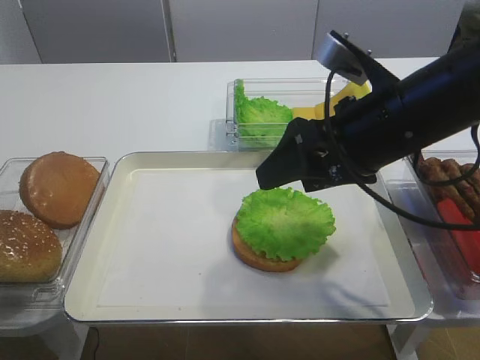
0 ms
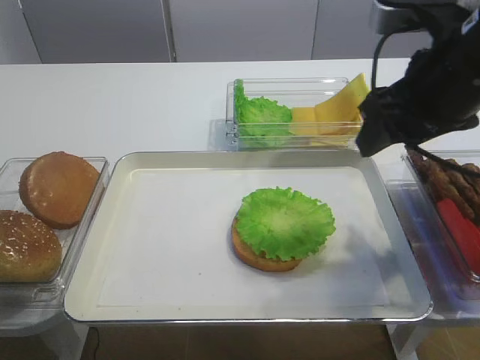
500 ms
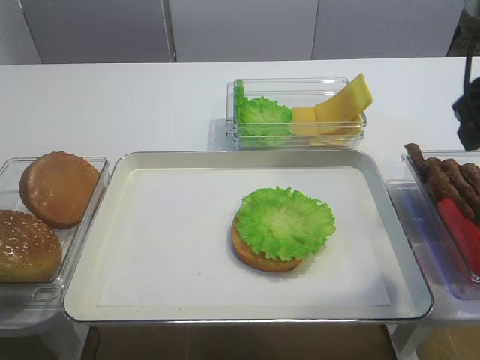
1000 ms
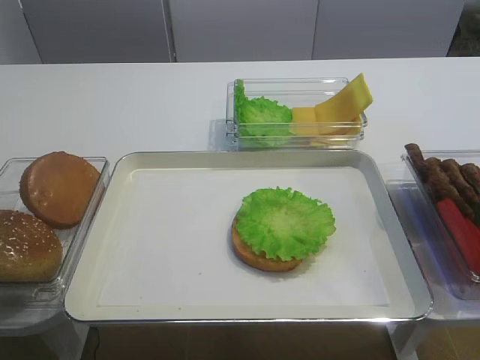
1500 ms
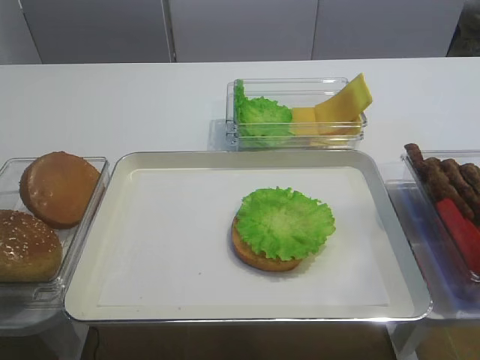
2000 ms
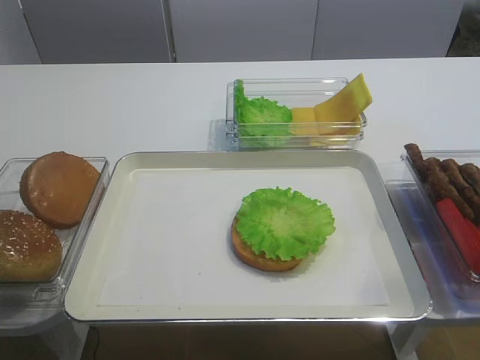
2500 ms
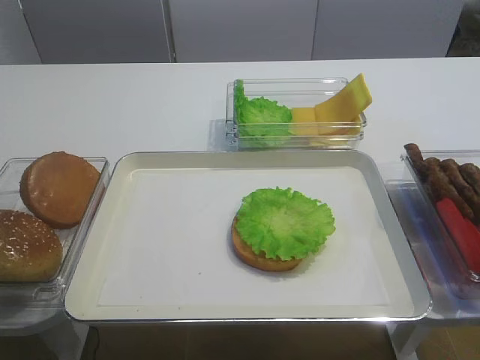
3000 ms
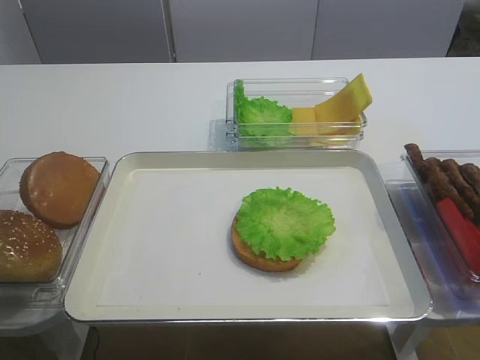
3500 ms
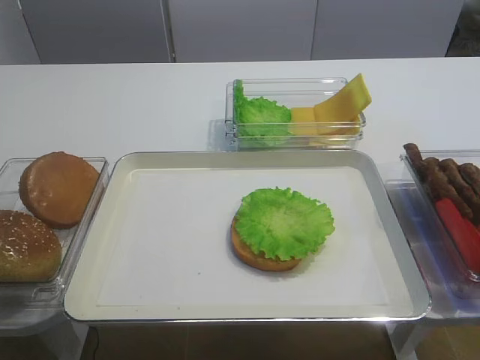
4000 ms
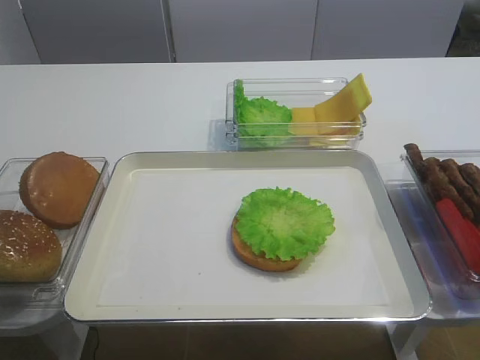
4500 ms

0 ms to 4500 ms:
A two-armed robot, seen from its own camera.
0 ms to 2000 ms: The right gripper goes about 20 cm backward and to the right.

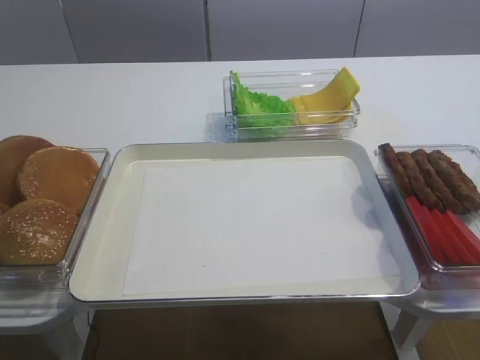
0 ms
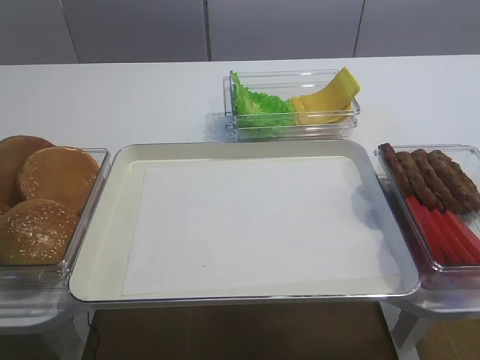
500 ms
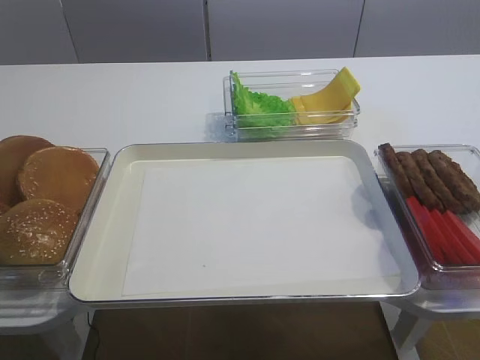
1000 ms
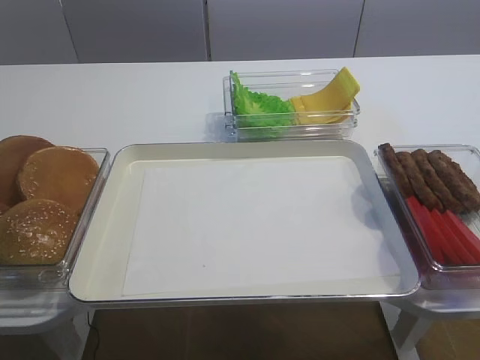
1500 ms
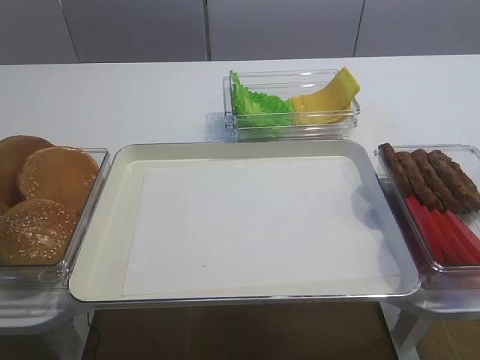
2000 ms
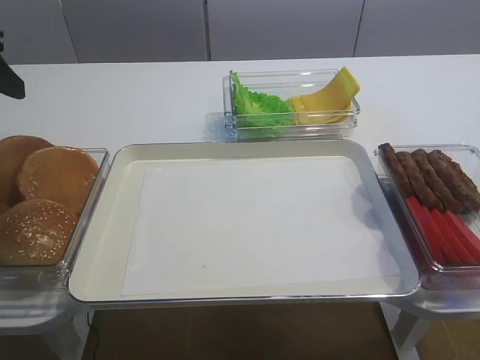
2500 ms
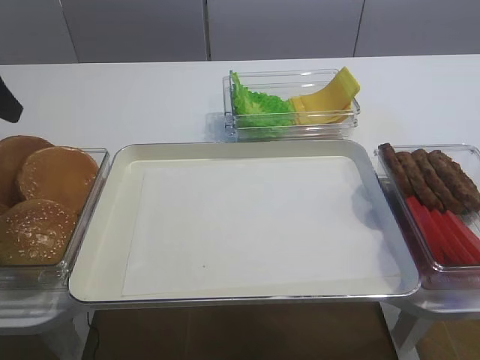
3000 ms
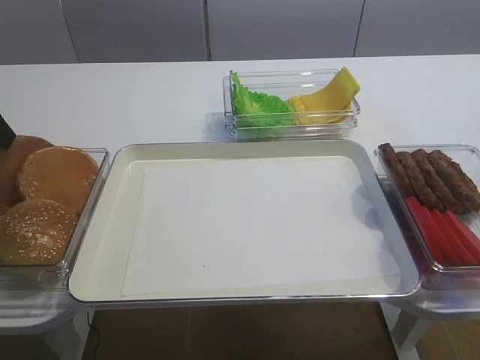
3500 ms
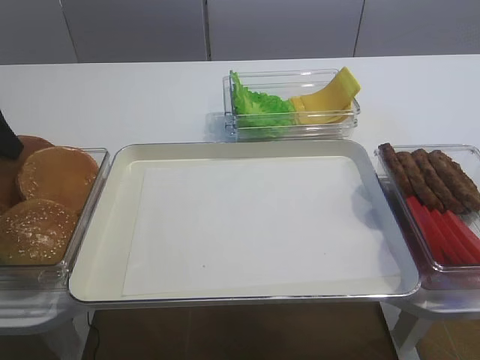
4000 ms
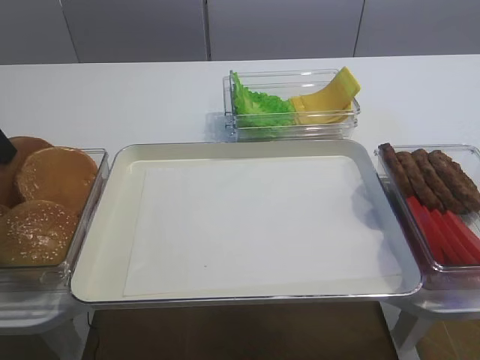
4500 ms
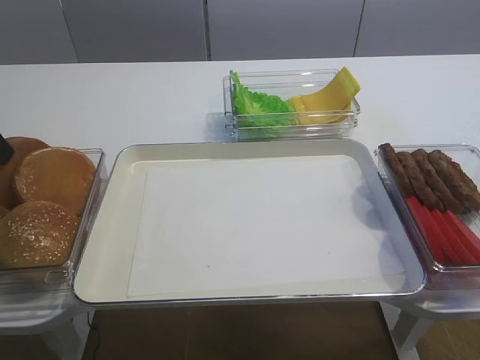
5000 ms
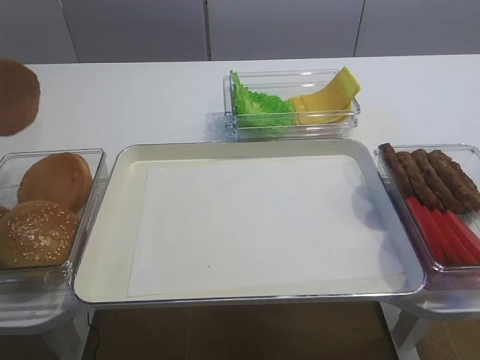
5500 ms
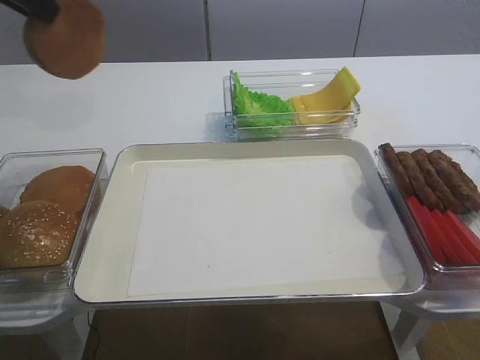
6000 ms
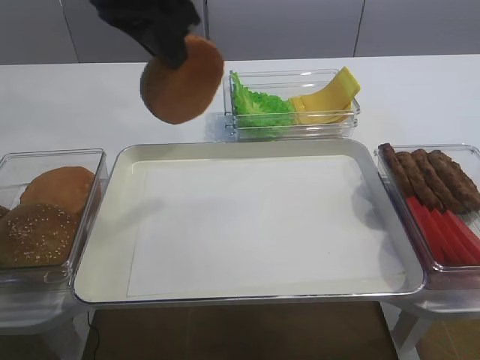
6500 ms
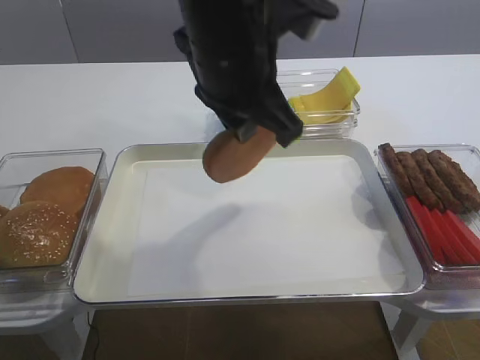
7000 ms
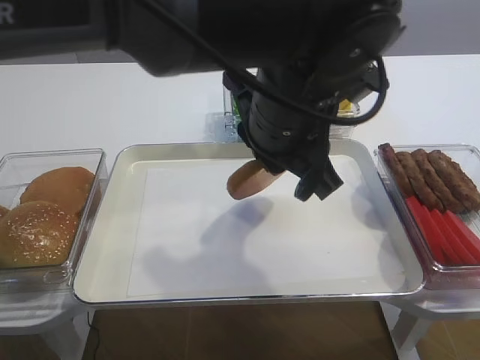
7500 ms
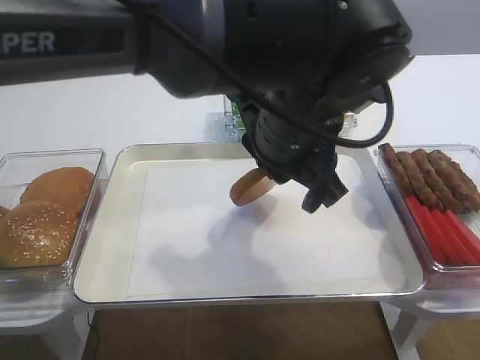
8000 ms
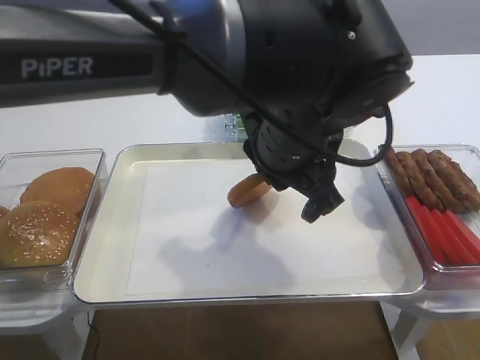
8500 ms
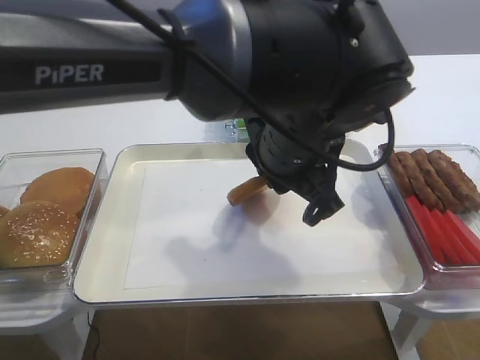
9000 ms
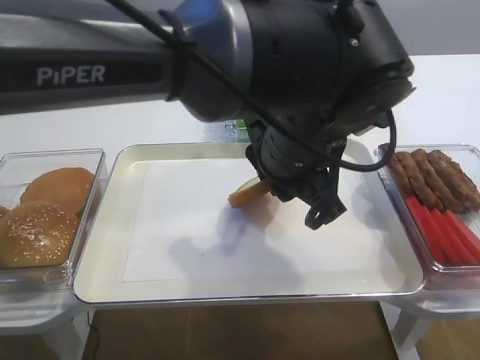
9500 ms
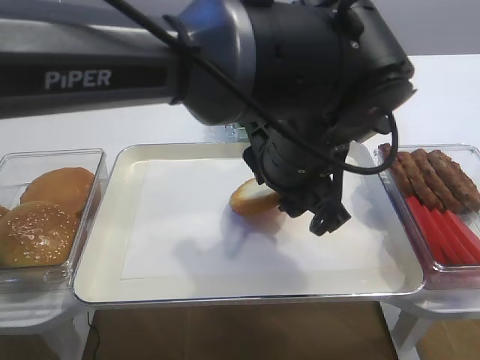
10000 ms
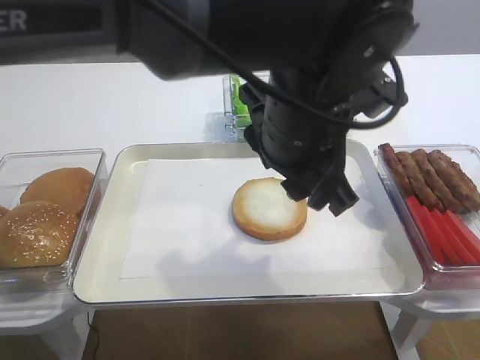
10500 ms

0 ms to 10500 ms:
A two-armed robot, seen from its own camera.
Step, 0 ms to 5000 ms: Pick up the bread slice with the left gripper.
4000 ms to 6500 ms: The left gripper heads to the right and upward, covering about 25 cm, and closes.
6500 ms to 8500 ms: The left gripper shifts some 20 cm to the right and downward.
8500 ms to 10500 ms: The left gripper opens.

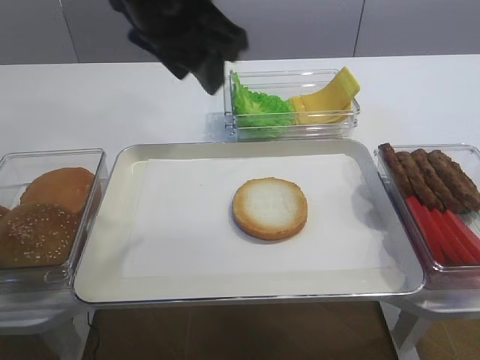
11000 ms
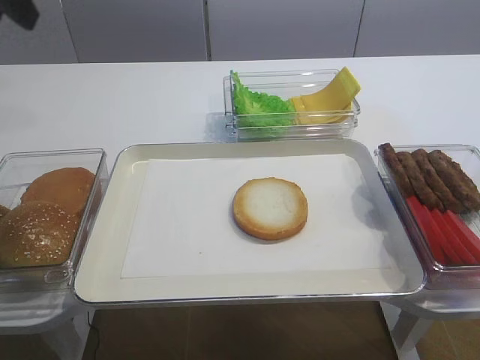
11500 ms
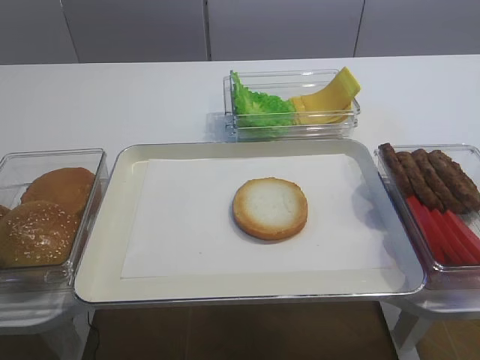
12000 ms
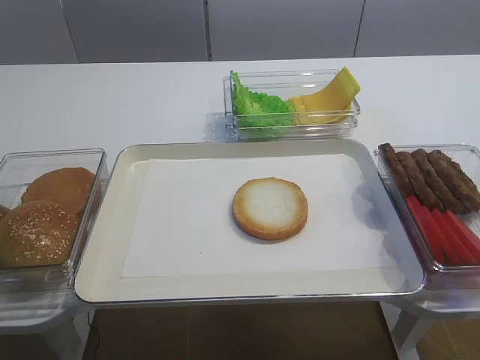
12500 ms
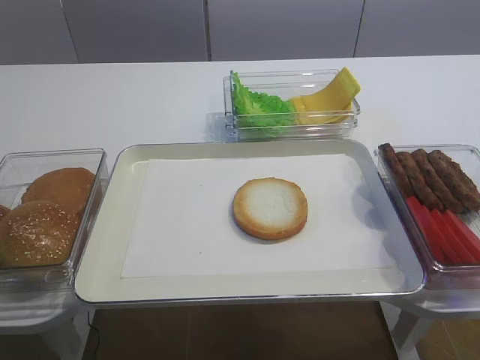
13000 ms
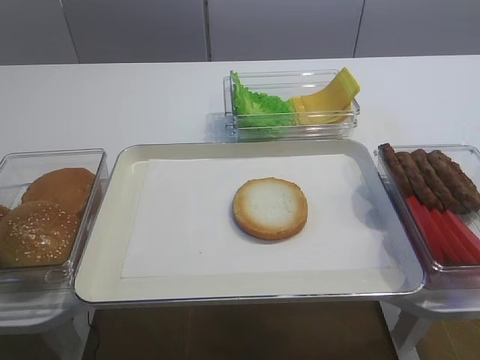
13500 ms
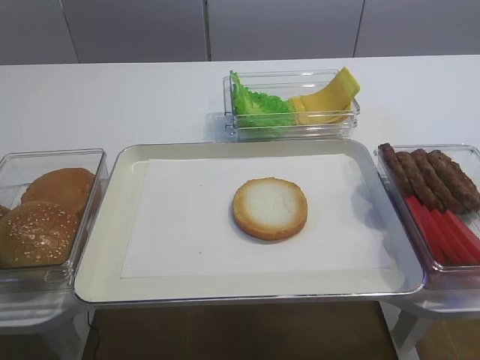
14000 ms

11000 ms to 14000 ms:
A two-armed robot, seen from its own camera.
11000 ms to 12500 ms: The left gripper shifts some 30 cm backward and to the left.

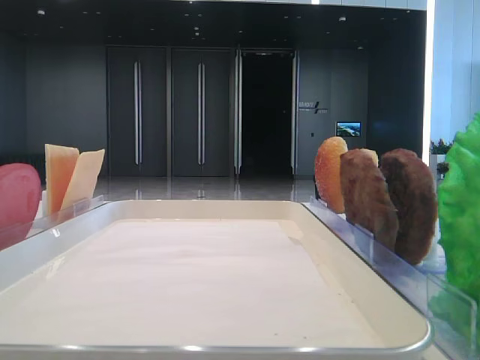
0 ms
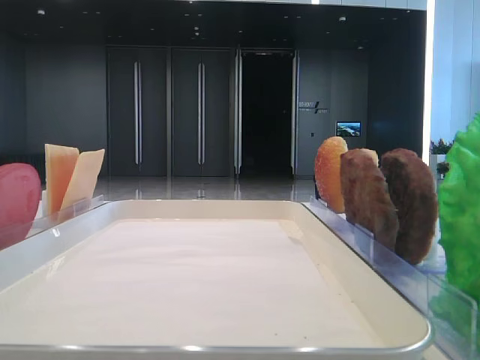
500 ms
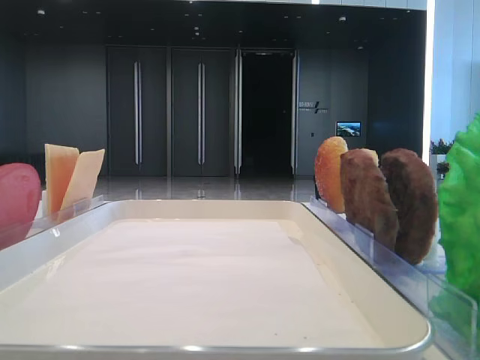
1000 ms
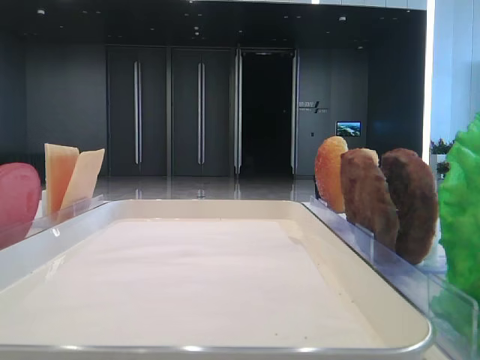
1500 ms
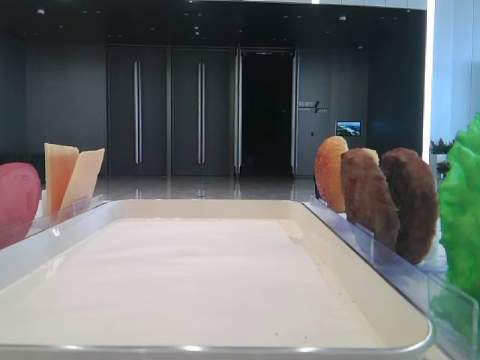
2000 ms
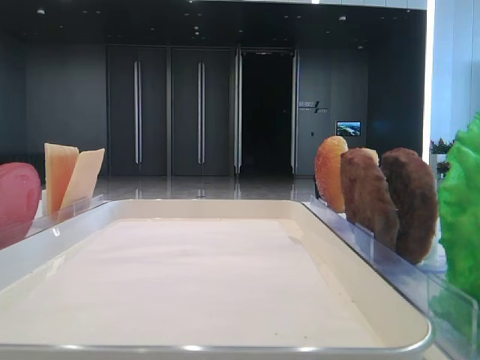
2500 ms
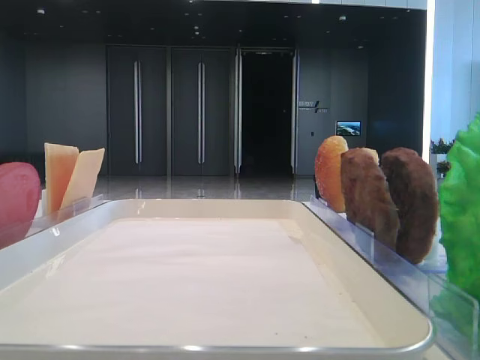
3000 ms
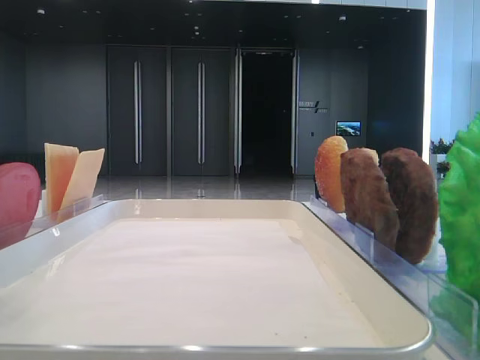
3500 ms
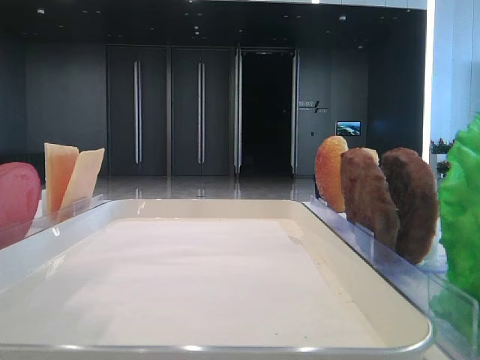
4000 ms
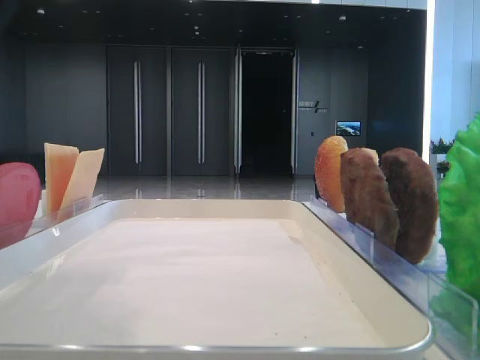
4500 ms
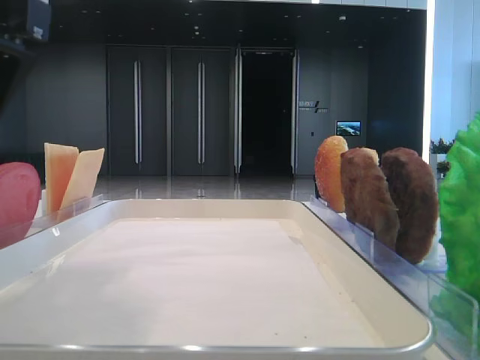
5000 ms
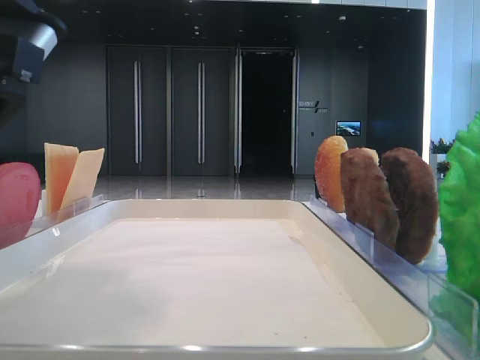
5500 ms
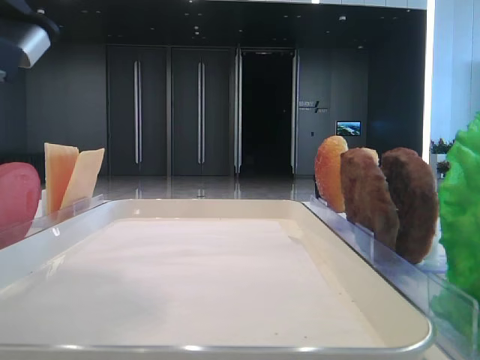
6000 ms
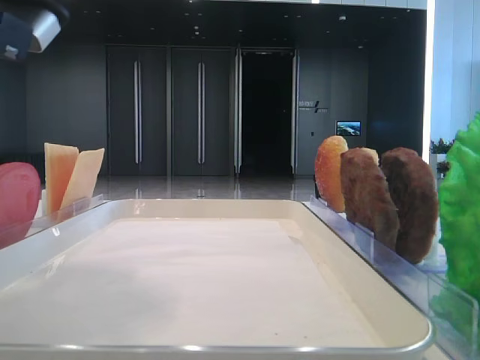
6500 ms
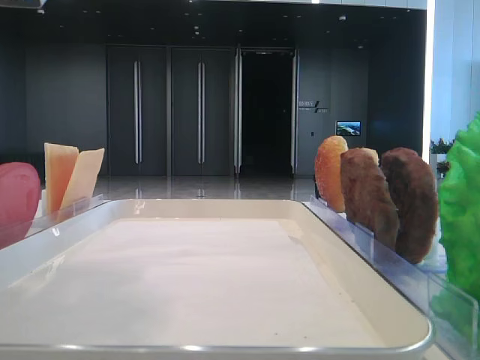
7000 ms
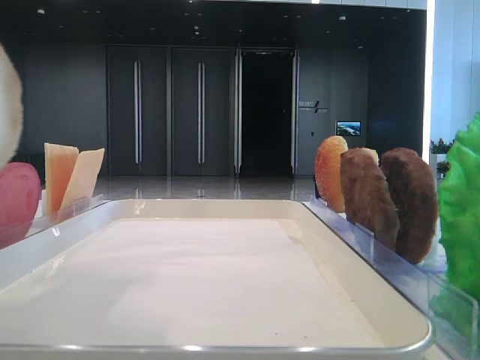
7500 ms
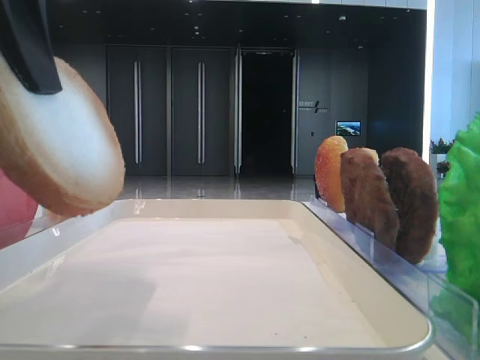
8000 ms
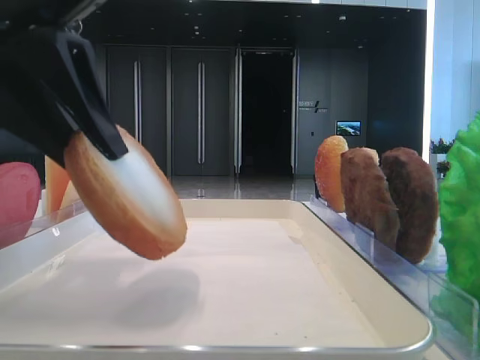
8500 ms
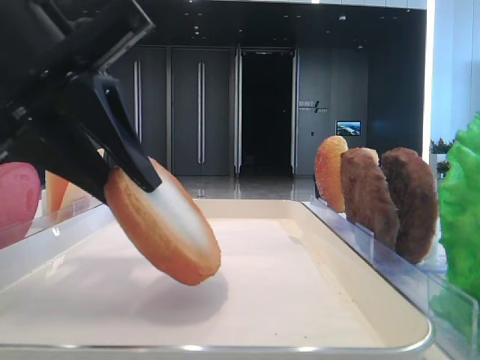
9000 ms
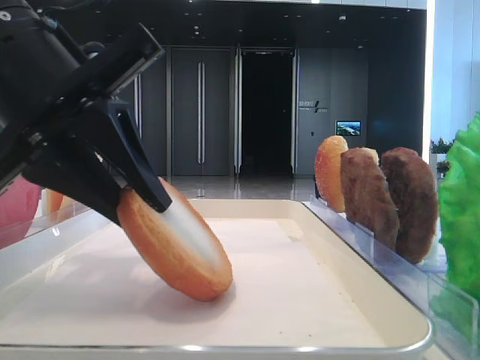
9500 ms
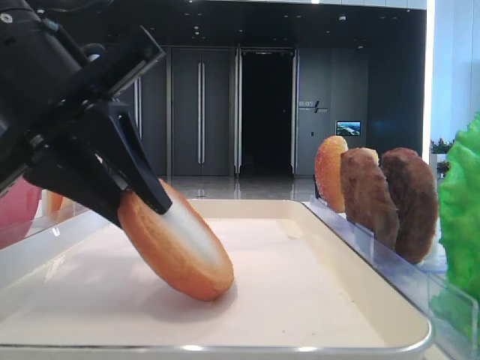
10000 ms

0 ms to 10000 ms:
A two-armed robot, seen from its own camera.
Step, 0 ms to 6000 ms: Pick up the bottom bread with the left hand.
2000 ms to 4000 ms: The left gripper heads to the right and forward, covering approximately 15 cm.
4000 ms to 6000 ms: The left gripper goes about 5 cm downward, and closes up.
8000 ms to 10000 ms: The left gripper travels downward by some 10 cm.
